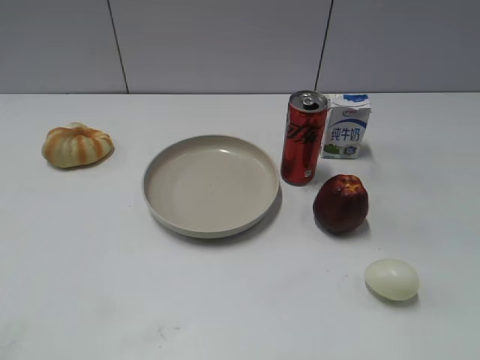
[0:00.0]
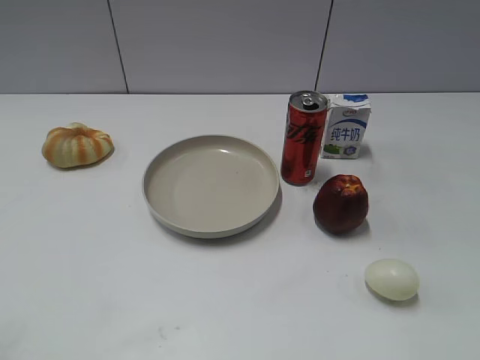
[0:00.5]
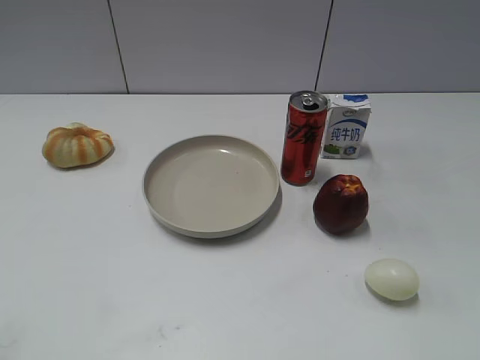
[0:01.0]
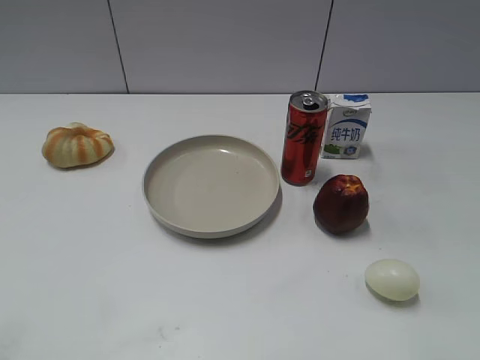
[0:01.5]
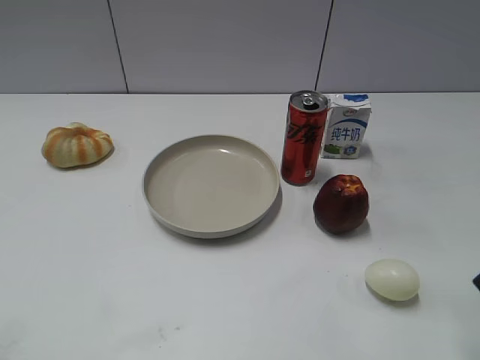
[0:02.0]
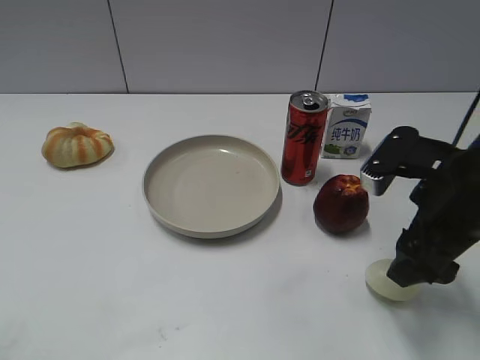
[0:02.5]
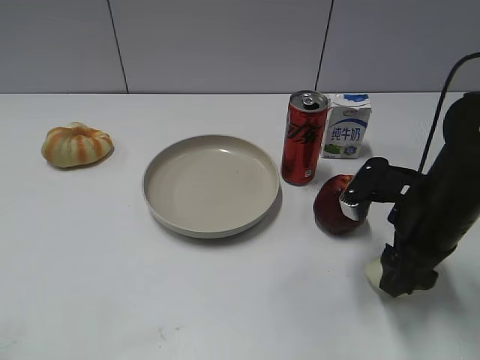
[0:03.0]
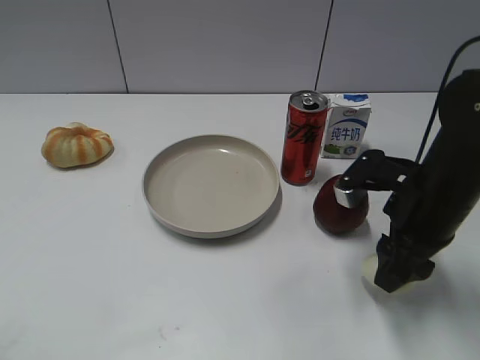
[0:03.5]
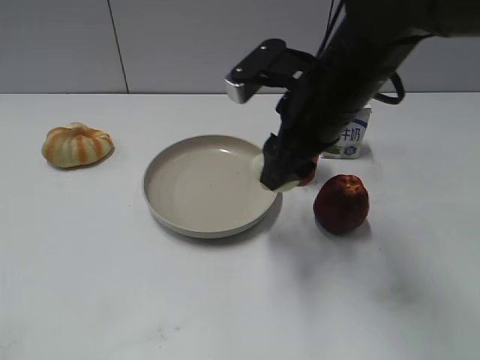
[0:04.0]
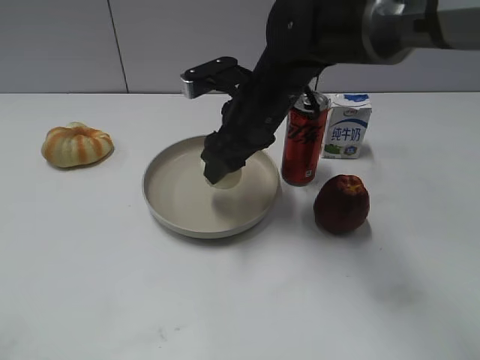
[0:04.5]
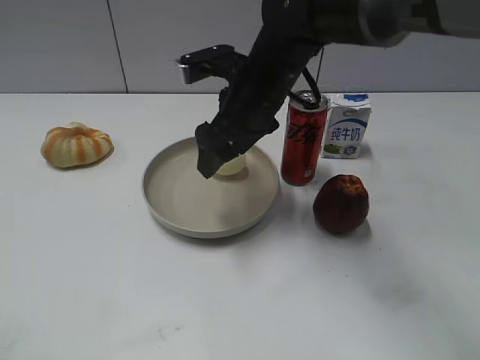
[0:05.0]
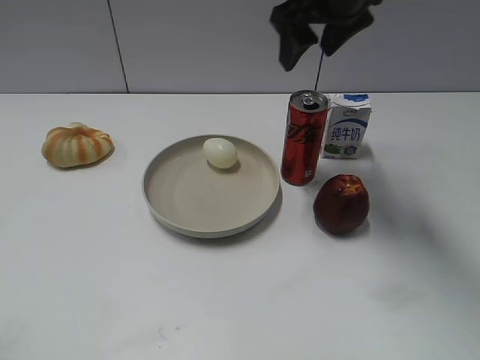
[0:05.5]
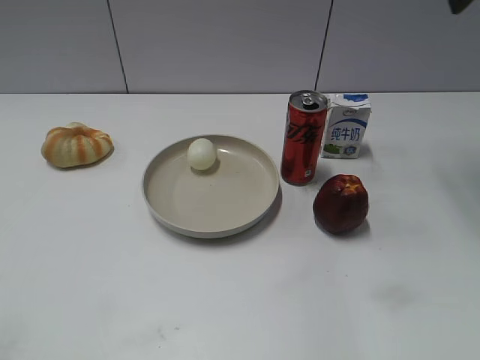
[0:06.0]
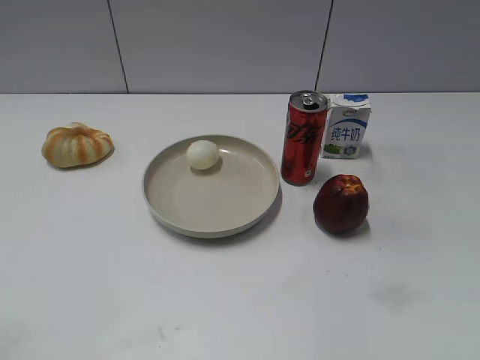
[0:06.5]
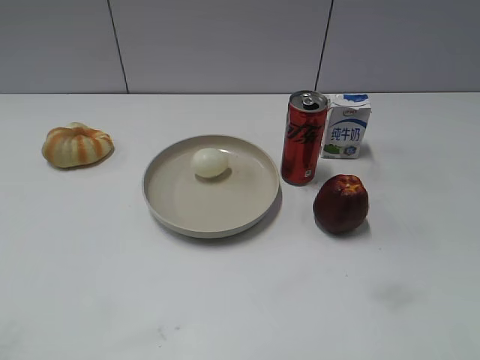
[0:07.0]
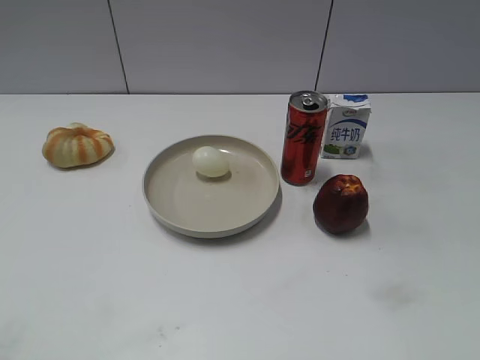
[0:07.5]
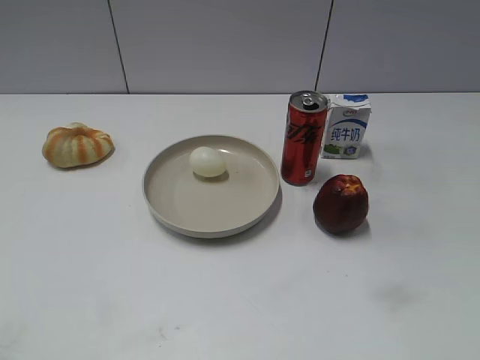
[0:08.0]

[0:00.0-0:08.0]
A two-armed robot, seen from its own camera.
Step, 0:01.0 to 0:03.0: Grasp the egg with right gripper.
Step, 0:03.5 to 0:05.0: Place the egg on the plate with right gripper.
0:02.0 to 0:04.0: The right gripper goes about 25 cm to the left and forward, and closes its fingers.
0:04.0 to 0:06.0: The right gripper travels to the right, upward and forward by approximately 25 cm, and opens up.
0:06.0 to 0:08.0: The right gripper goes roughly 35 cm backward.

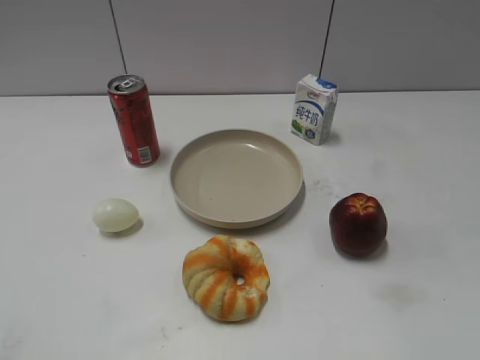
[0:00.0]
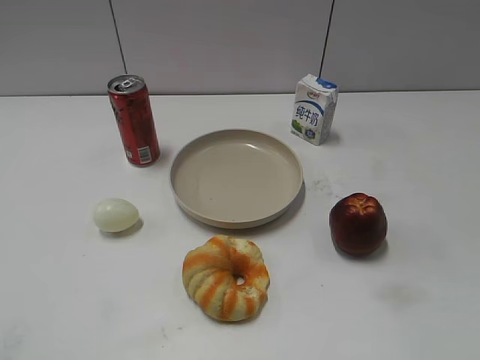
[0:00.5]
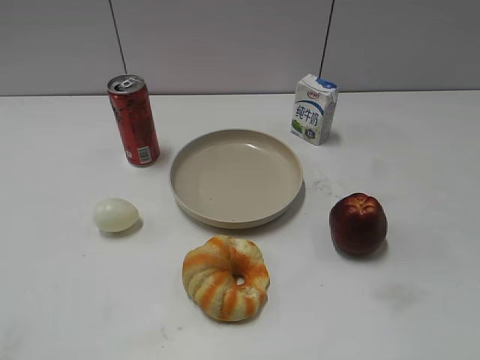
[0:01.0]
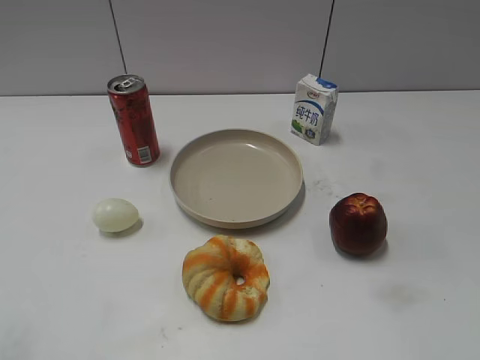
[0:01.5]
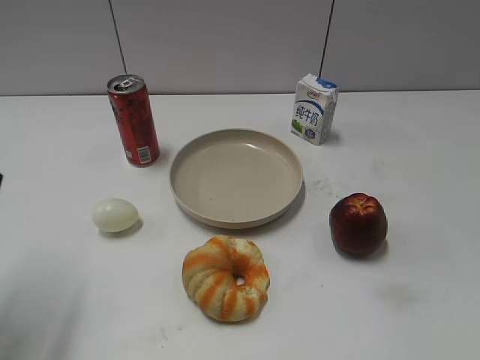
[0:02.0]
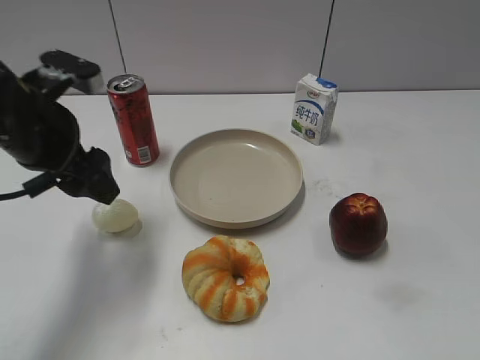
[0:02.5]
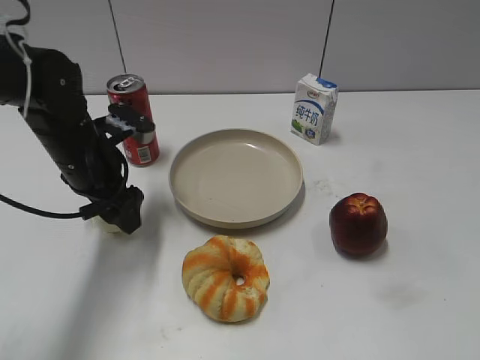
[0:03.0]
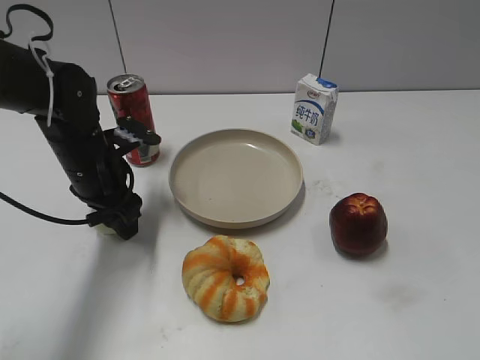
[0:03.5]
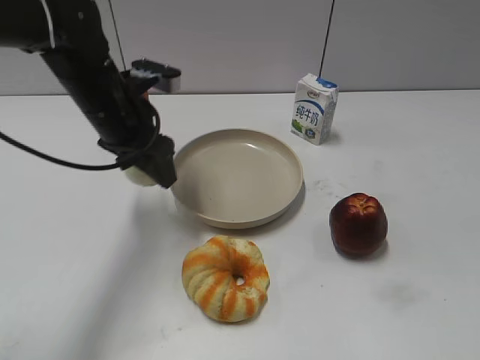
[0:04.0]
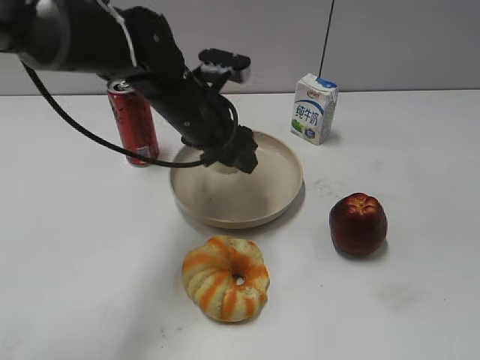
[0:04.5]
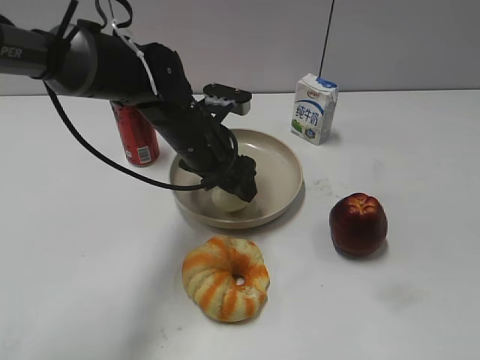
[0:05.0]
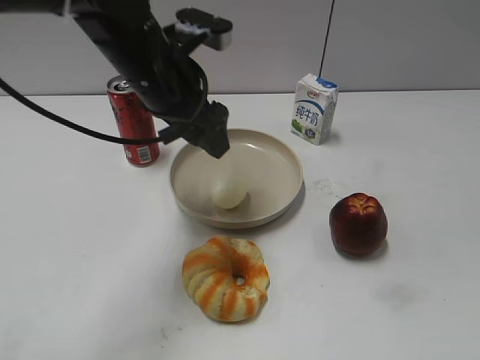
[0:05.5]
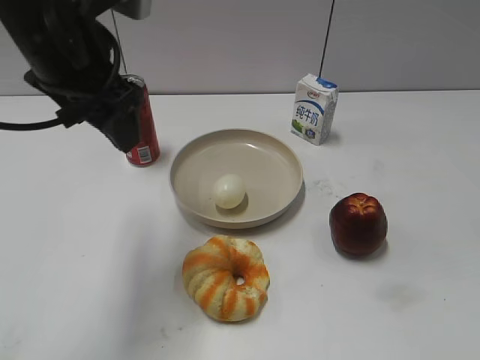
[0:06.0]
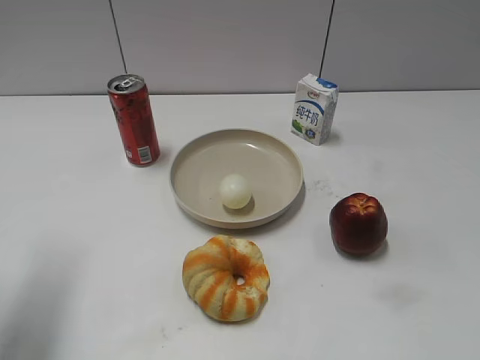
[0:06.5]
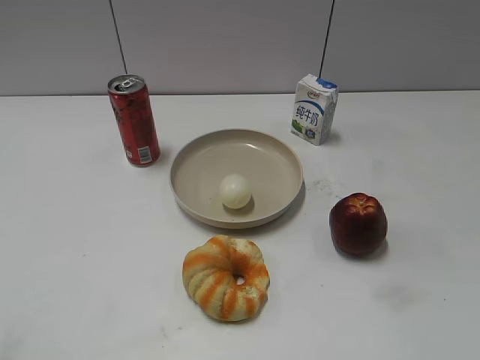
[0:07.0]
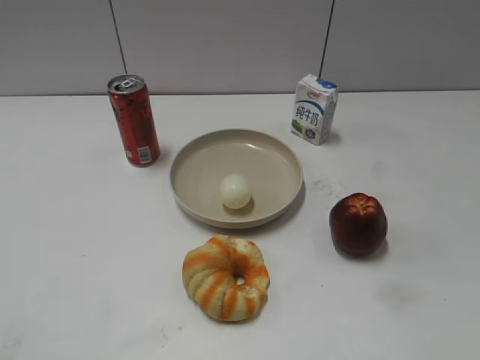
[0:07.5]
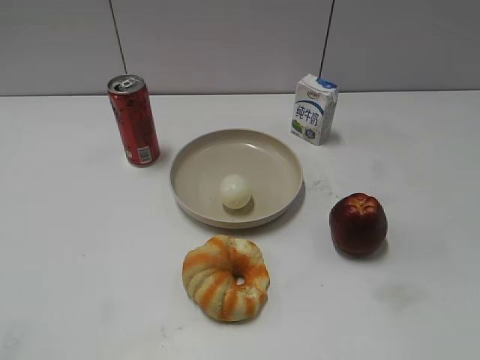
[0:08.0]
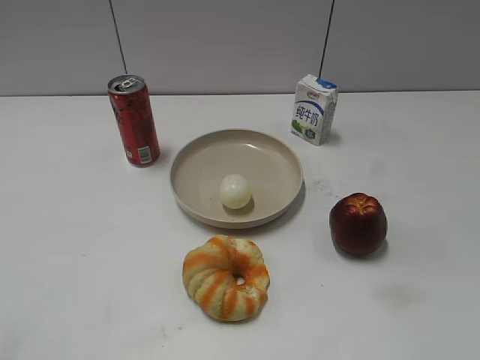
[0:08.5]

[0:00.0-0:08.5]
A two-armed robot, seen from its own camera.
Step, 0:01.5 to 0:03.5: Grasp the egg with left gripper.
Step, 0:04.0 to 0:05.0: Place the egg on the plate with left gripper.
0:02.0 to 0:04.0: The left gripper is displaced to the right, forward and downward by about 25 cm, and closes up.
0:04.0 to 0:06.5: The left gripper is displaced to the left and backward by approximately 25 cm, and opens its fingers.
0:06.5 to 0:08.5: The left gripper moves backward, roughly 20 cm.
